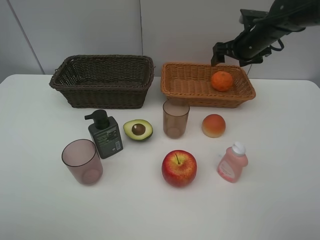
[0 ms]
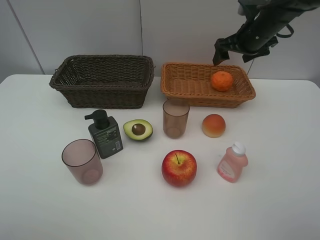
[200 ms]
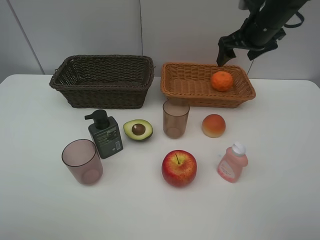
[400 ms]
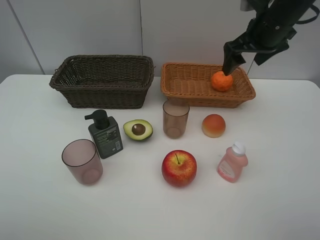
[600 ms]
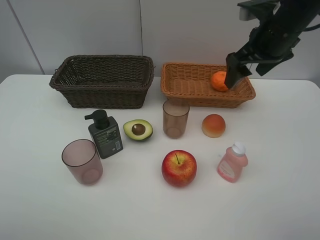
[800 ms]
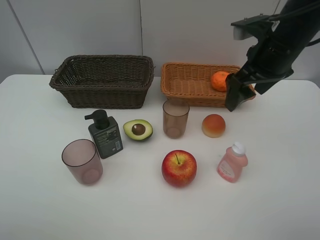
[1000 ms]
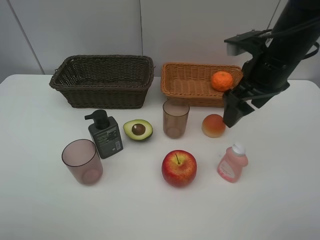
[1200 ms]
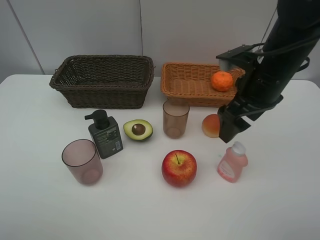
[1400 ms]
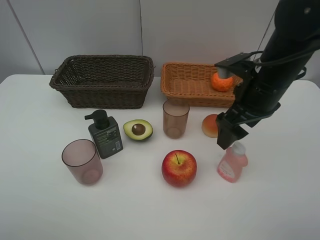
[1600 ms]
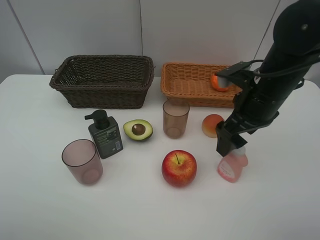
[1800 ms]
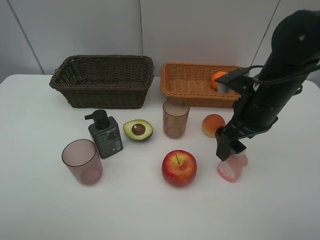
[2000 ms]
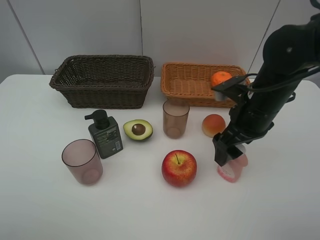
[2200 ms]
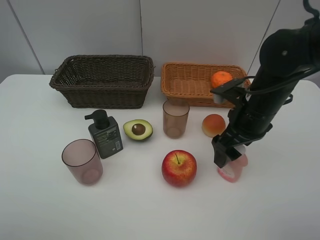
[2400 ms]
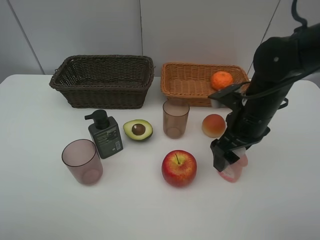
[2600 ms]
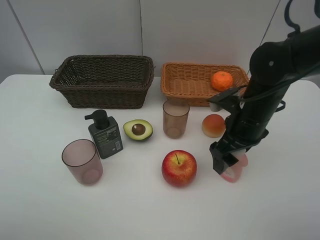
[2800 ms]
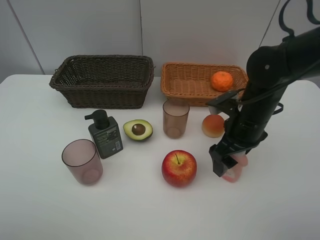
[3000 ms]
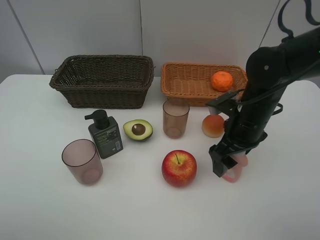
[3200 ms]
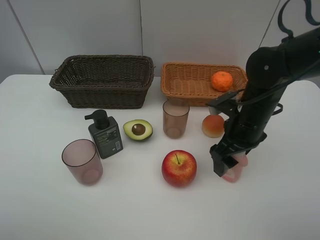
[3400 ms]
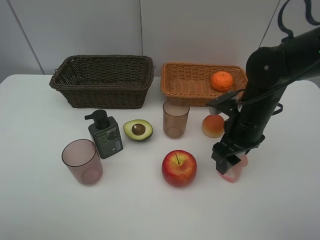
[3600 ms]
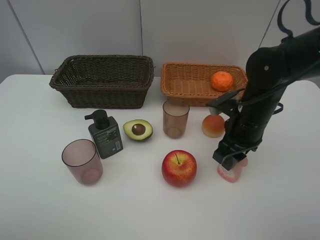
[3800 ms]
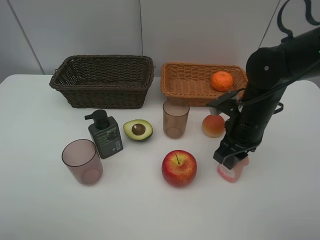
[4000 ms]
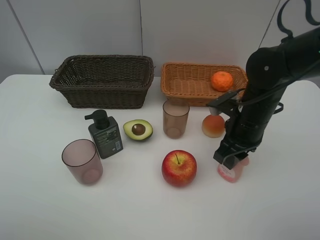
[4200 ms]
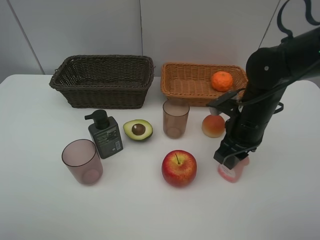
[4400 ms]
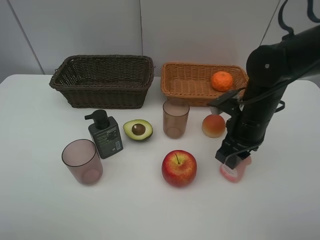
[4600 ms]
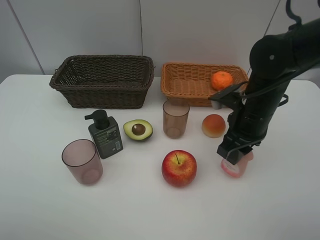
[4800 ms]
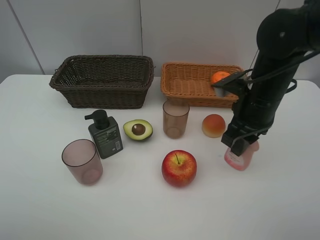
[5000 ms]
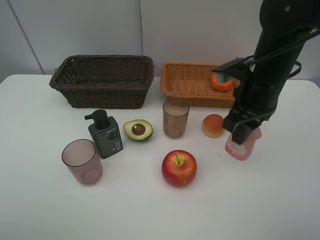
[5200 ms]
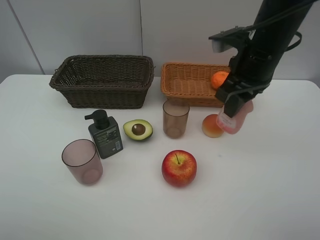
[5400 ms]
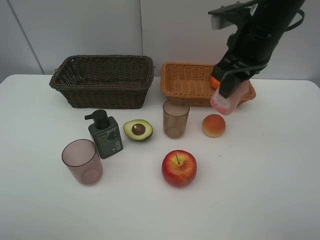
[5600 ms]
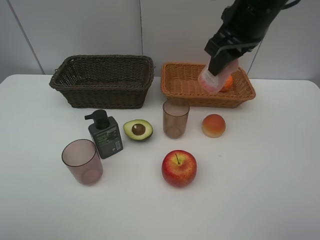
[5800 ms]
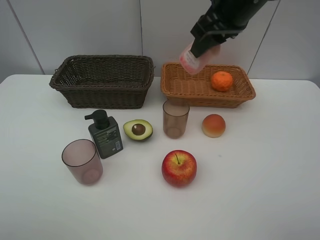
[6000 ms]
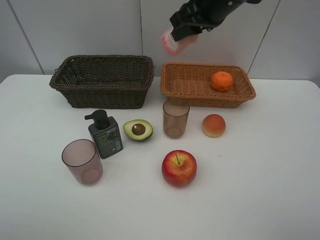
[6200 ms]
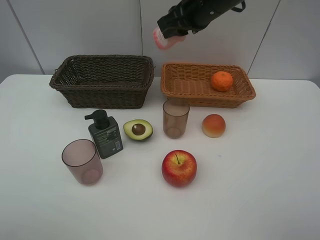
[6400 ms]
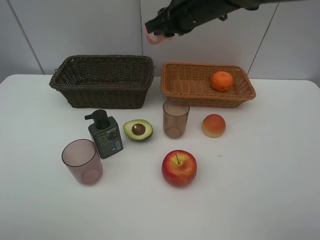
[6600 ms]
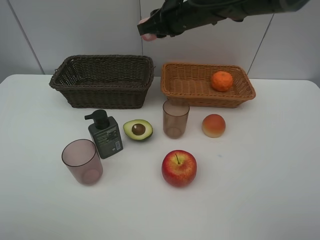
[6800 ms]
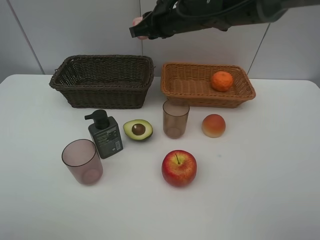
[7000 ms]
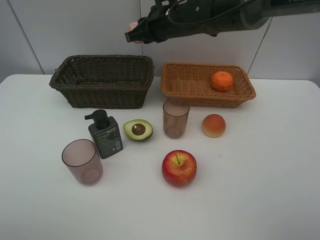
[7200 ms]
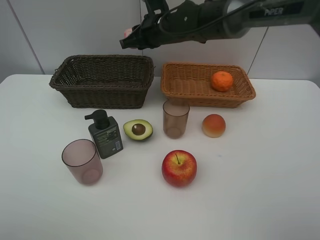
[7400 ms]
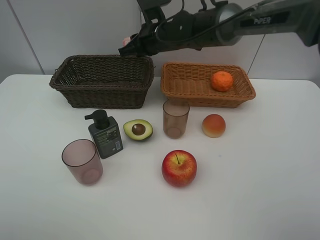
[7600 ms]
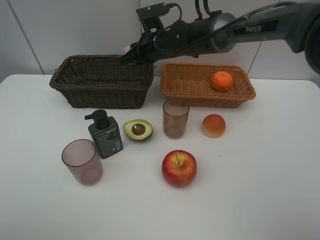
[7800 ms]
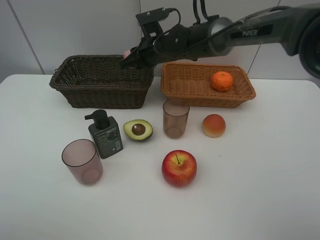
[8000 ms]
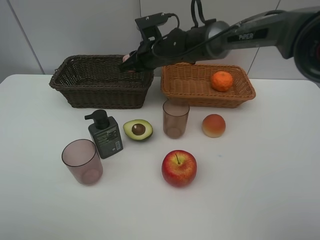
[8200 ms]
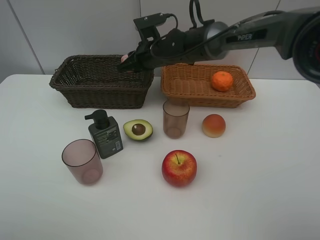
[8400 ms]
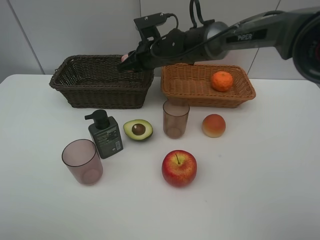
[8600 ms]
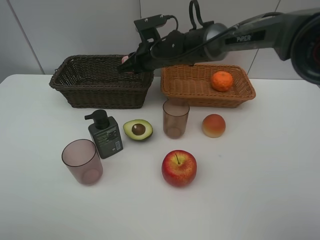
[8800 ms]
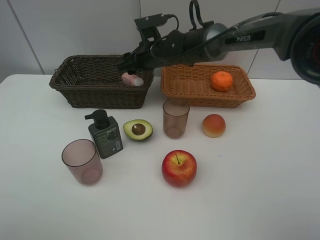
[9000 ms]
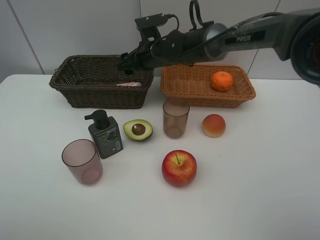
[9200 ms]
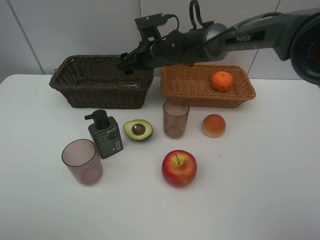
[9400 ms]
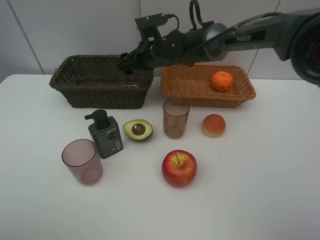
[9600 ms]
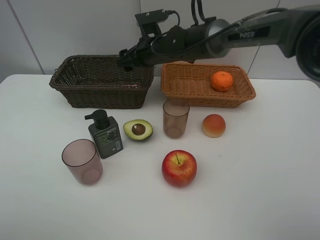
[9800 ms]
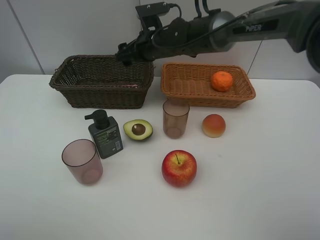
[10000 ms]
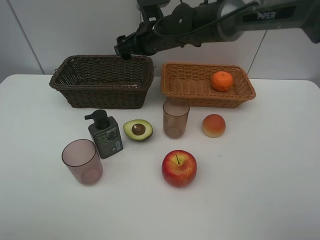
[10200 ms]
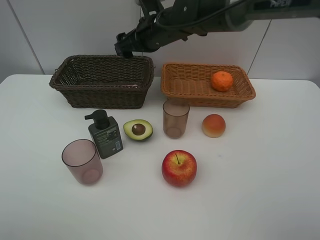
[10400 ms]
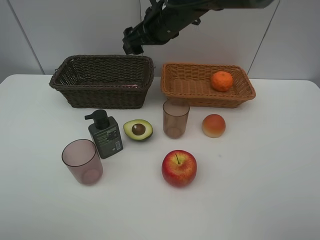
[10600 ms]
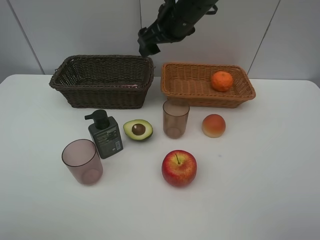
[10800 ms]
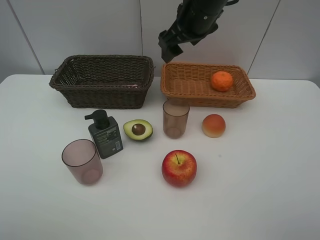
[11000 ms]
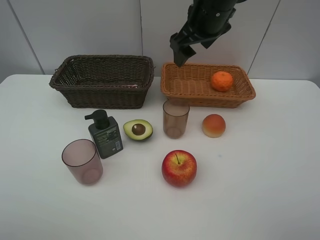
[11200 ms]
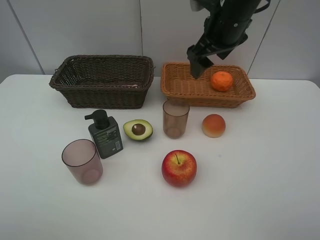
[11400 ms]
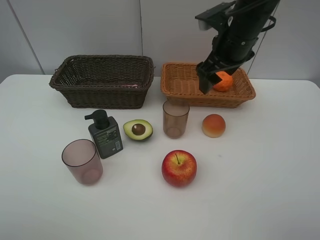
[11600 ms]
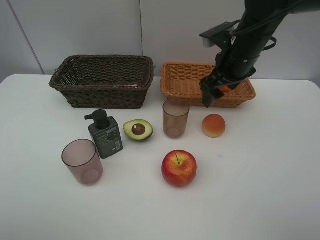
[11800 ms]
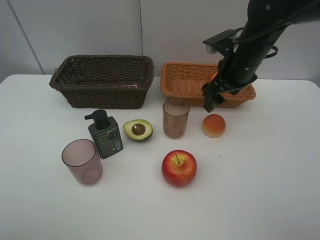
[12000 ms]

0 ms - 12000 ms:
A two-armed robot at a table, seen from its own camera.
Task of the whole recording: Place multiple objects separately in different baskets.
Step, 0 ms - 4800 ms: Pick up the laundry detergent with right gripper.
Step, 5000 ms - 9200 ms: Place the laundry detergent in the dark basket with right gripper.
0 ms - 1600 ms: The right gripper goes approximately 20 cm backward.
1600 ms - 3000 ms: The right gripper is displaced downward by some 10 cm.
3000 ms - 4400 ms: The right gripper closes.
4400 ms - 6000 ms: The right gripper moves upward, approximately 20 cm.
6000 ms - 7600 ms: The right gripper is displaced downward, to the left and forward by some 20 cm.
7600 ms - 9000 ms: The right gripper opens.
9000 ms - 10400 ms: The right gripper heads upward, covering roughly 5 cm.
10400 ms - 12000 ms: The right gripper is displaced to the right and backward by roughly 15 cm.

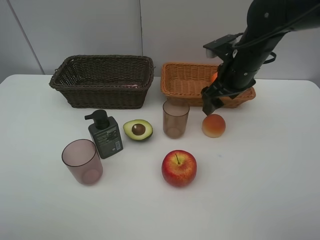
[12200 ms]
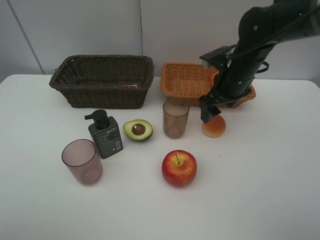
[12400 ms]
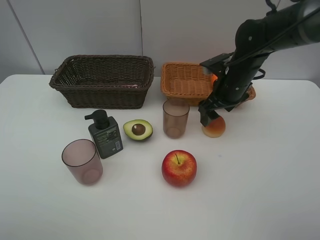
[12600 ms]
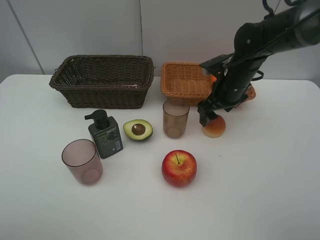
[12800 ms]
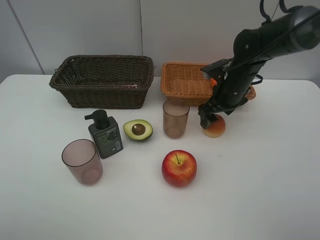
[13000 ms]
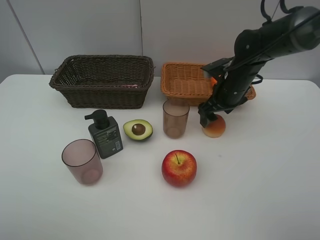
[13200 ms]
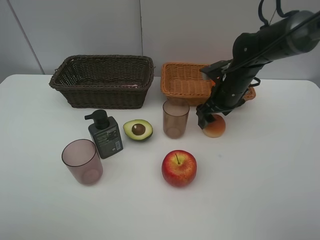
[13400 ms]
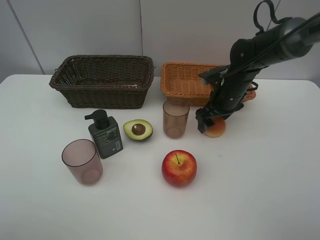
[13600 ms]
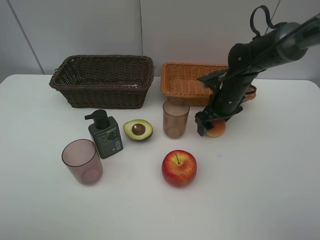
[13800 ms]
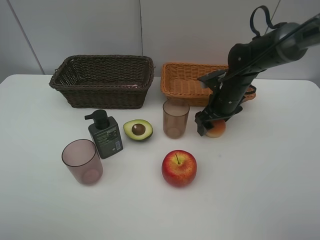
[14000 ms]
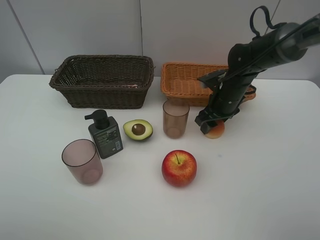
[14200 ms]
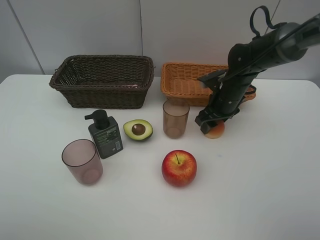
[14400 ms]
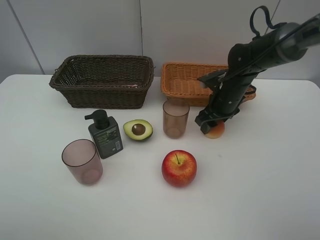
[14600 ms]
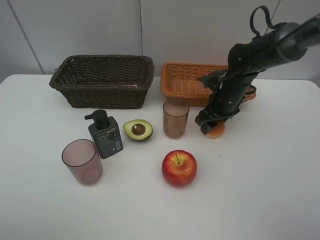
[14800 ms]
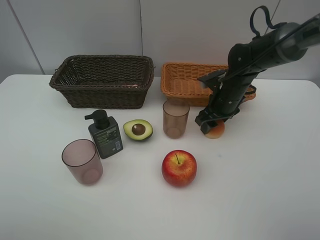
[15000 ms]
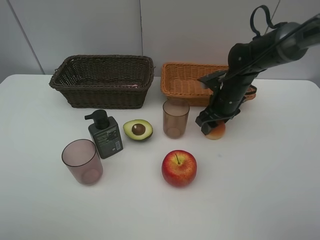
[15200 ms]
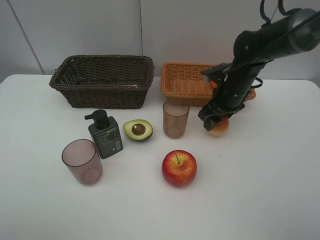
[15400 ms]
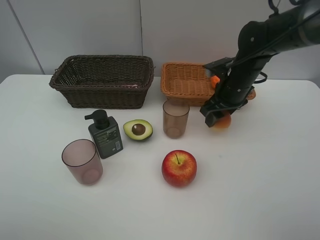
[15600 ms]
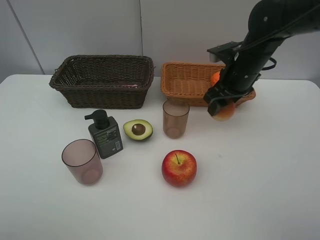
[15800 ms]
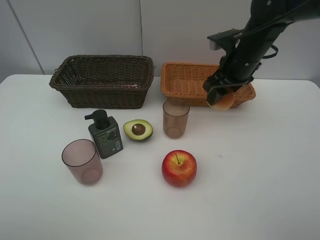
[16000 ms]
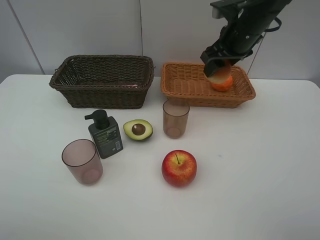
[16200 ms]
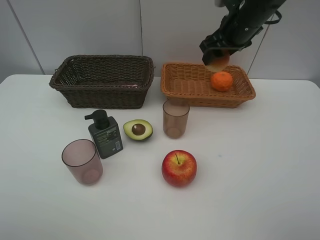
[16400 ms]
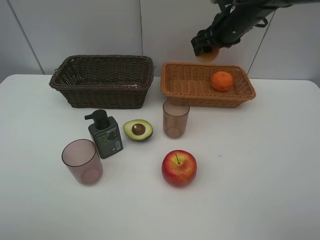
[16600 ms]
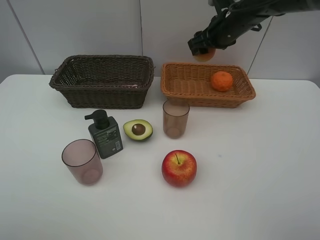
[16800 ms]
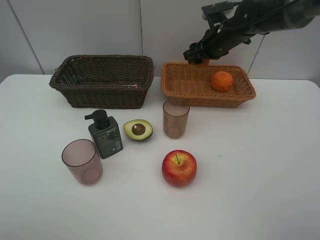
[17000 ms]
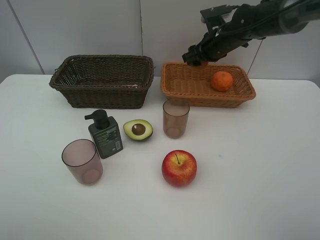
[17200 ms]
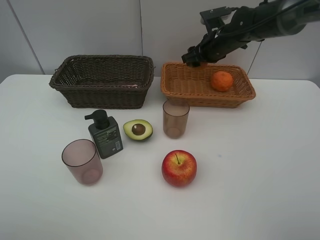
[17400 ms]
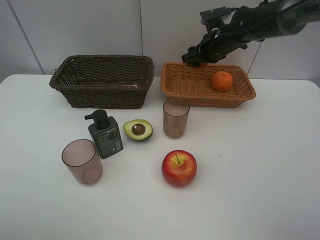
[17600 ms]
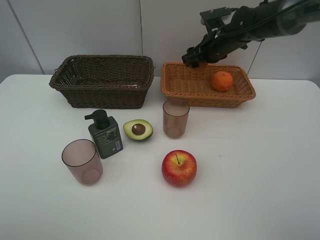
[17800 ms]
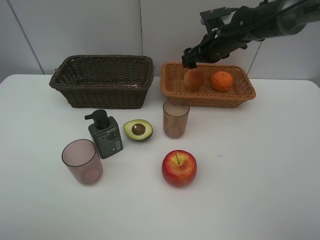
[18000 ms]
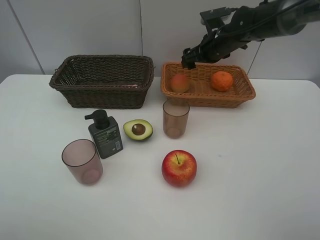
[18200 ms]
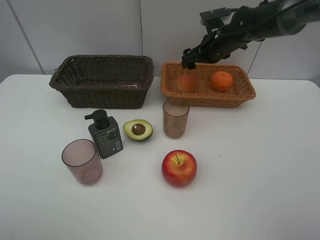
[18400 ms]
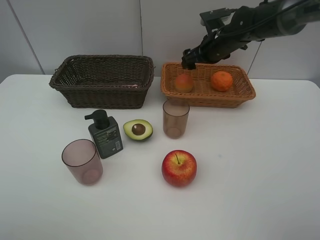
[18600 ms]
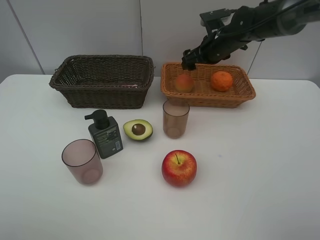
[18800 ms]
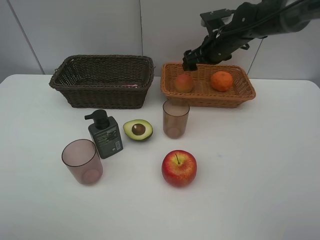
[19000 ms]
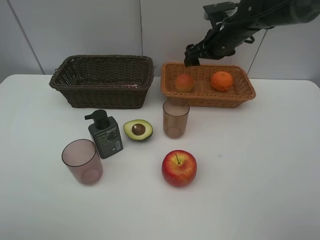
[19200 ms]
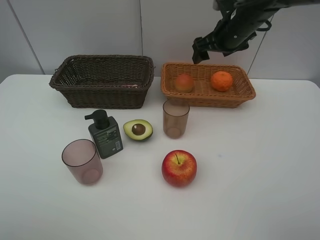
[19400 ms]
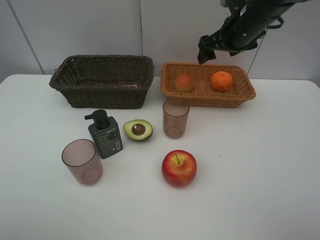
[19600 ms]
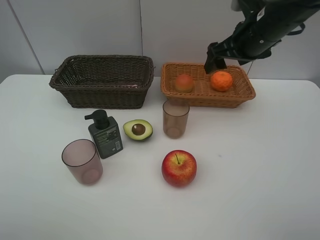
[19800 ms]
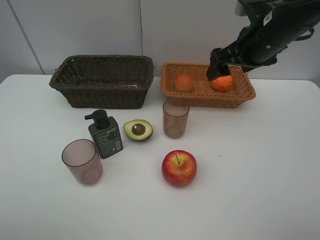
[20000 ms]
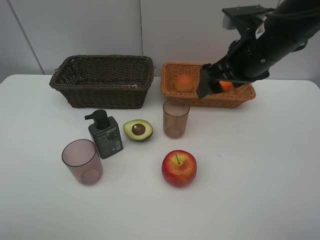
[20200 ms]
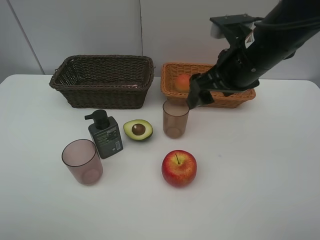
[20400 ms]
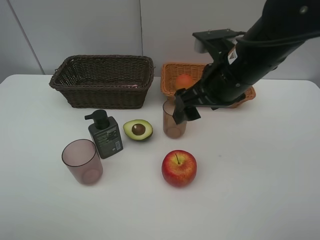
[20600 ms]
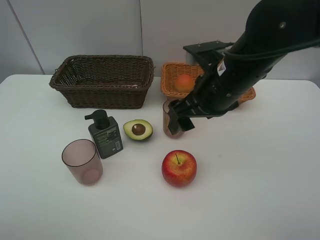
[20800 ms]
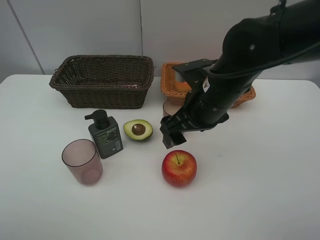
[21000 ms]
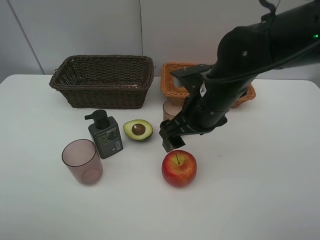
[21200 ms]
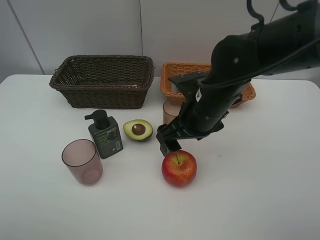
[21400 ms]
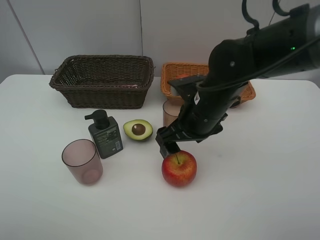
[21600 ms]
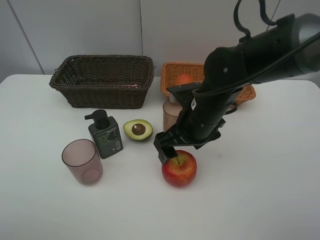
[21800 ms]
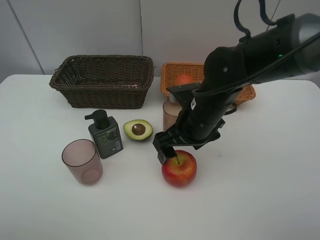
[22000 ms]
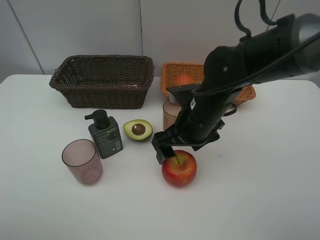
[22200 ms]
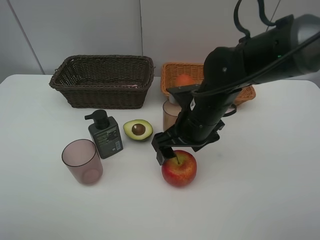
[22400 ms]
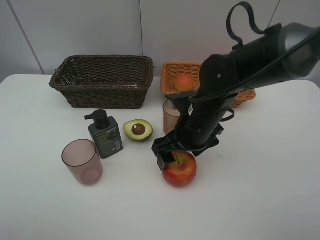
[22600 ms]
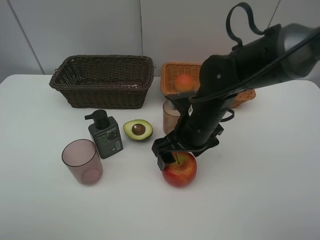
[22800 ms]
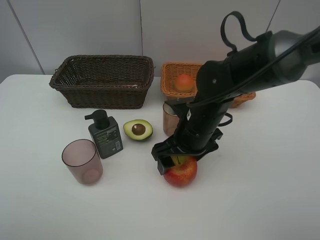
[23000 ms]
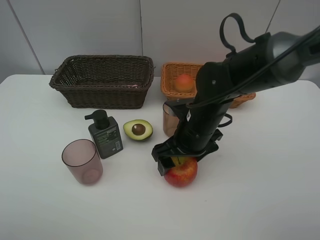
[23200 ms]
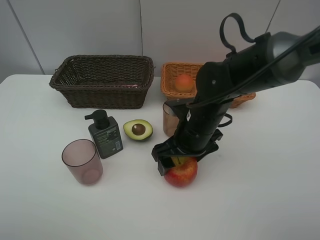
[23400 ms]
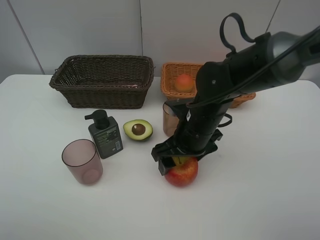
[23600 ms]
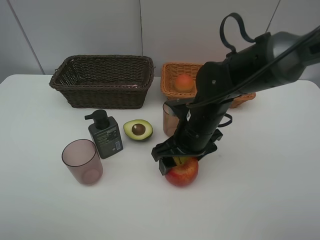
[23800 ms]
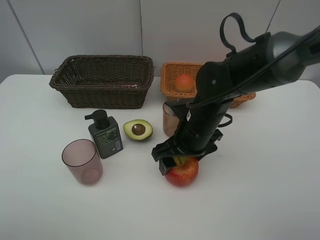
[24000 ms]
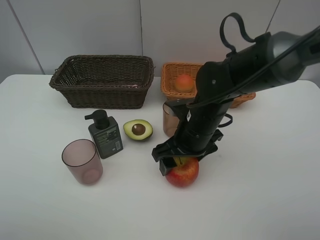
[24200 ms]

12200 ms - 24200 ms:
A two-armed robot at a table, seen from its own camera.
Task of the whole recording: Place multiple objects separately in different baskets.
Step, 12200 ms - 15600 ms: Pick up the bread with right gripper.
Step, 15800 ms - 18000 ms: Place the bread in the light basket with right gripper.
12200 ms - 13800 ms: The right gripper is displaced downward by roughly 10 cm.
15200 ms - 16600 ms: The right gripper is displaced upward and forward by roughly 15 cm.
16600 ms - 18200 ms: The right gripper goes approximately 5 cm downward, and opens up.
18200 ms - 19800 ms: The right gripper travels backward and upward by about 15 cm.
19800 ms - 21200 ms: The right gripper is displaced to the left, backward and downward by some 15 cm.
21200 ms - 22600 ms: The grippers make only small movements.
22600 ms - 24200 ms: Neither gripper changes place.
